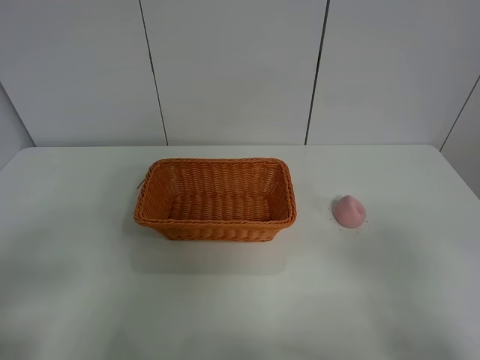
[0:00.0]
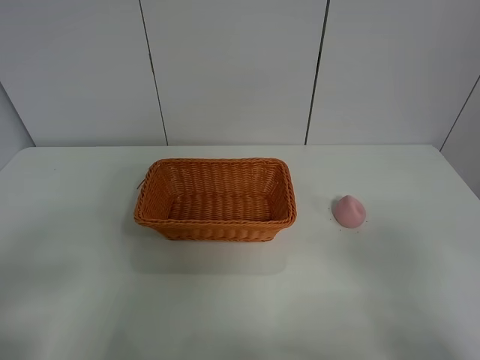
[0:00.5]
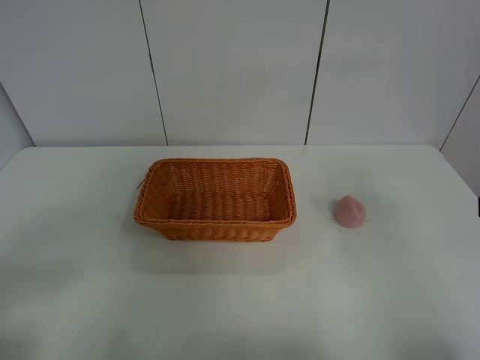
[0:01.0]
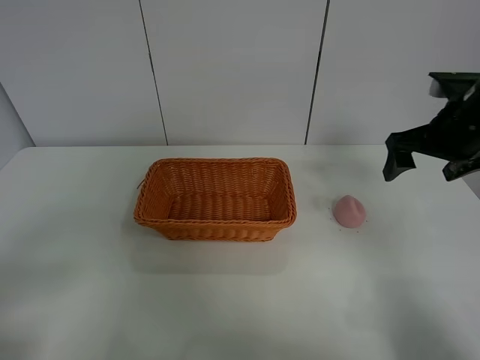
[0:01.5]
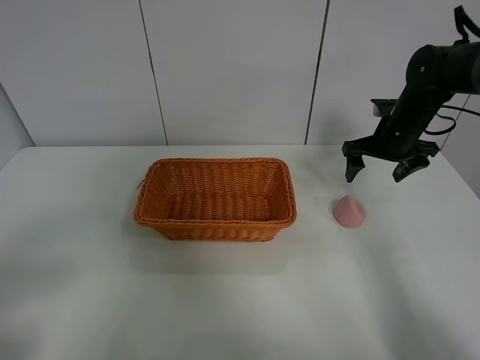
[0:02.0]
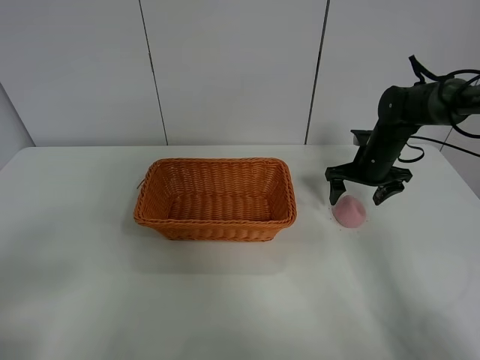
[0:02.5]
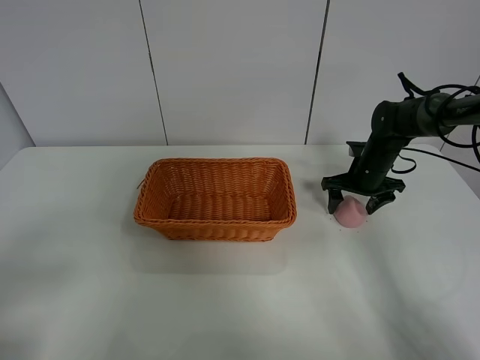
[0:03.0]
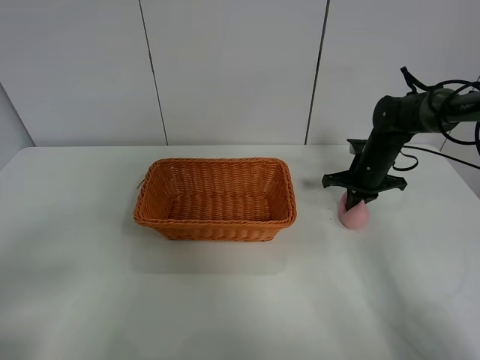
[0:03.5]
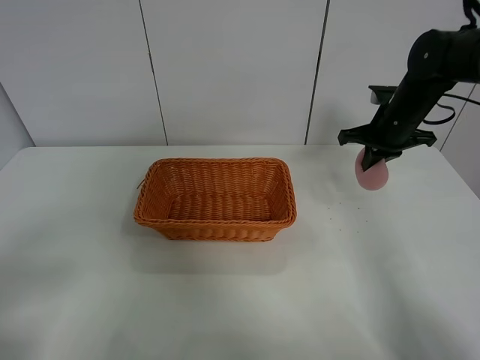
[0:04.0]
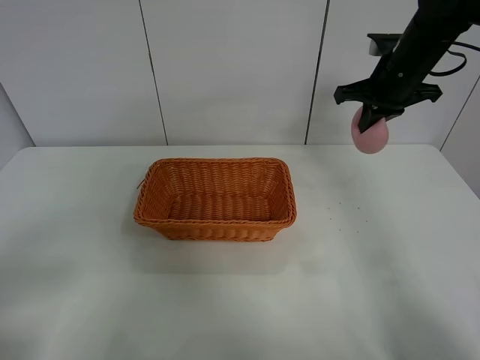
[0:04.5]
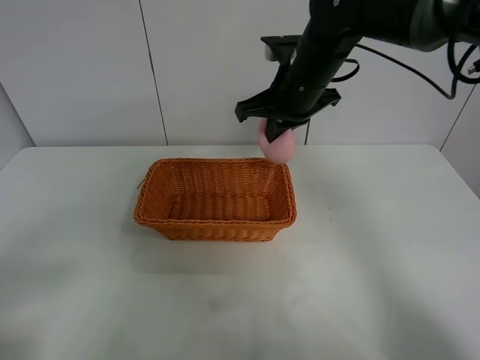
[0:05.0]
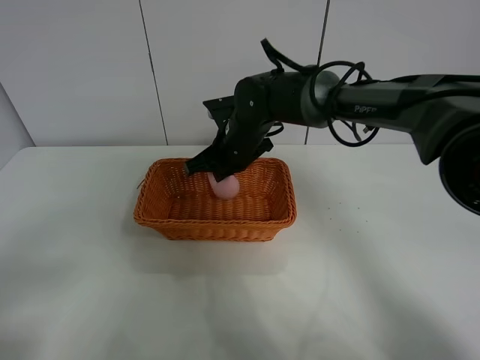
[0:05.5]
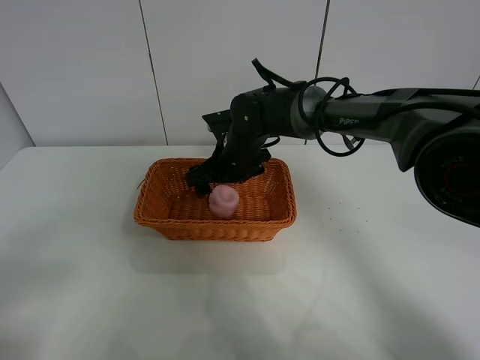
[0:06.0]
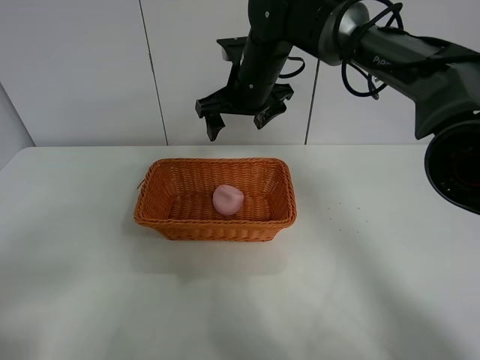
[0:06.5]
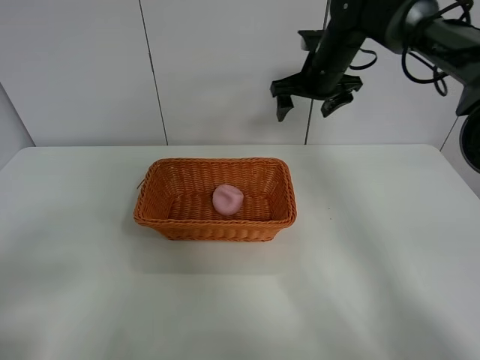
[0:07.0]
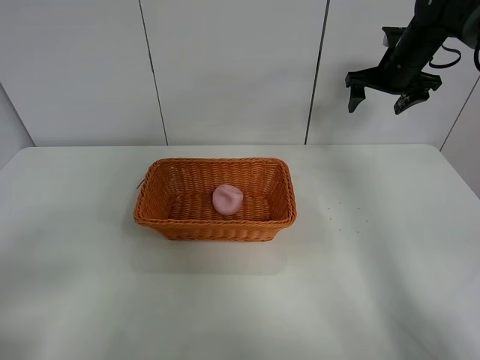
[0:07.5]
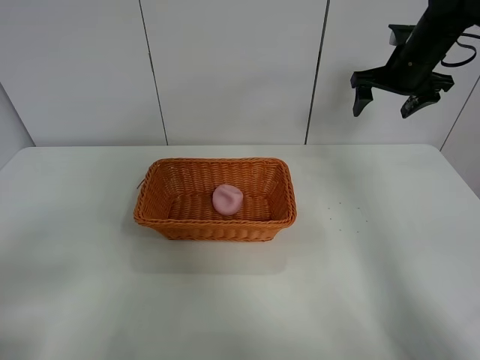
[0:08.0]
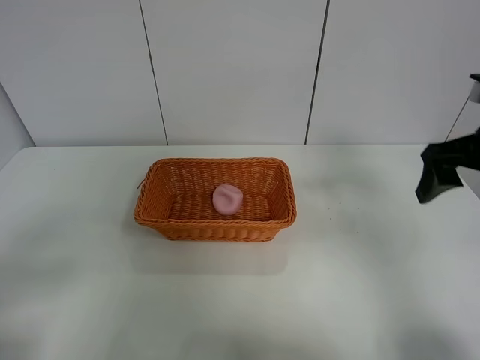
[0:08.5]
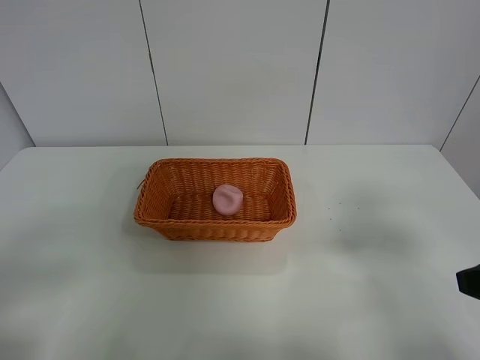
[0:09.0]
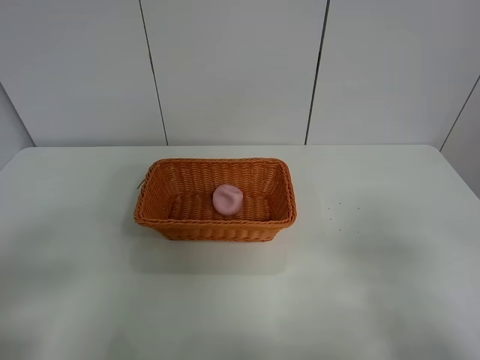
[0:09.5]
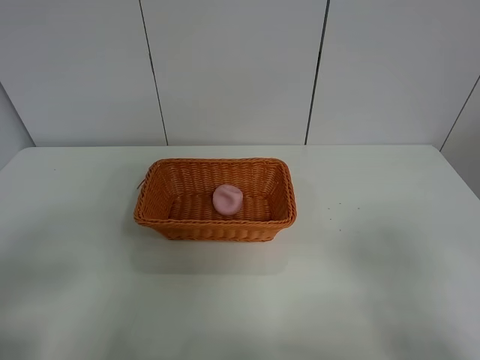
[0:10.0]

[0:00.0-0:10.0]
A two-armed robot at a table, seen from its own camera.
Step, 0:00.0 to 0:03.0: Grasp the peach with right gripper.
Step, 0:03.5 to 0:06.5: Place the peach in the basket with right gripper.
0:00.0 to 0:02.0: The right gripper moves forward, about 40 cm.
0:02.0 to 0:04.0: The right gripper moves some 10 cm downward and comes back, and closes.
0:04.0 to 0:06.0: The right gripper heads to the left, covering some 25 cm, and opens.
0:06.0 to 0:08.0: The right gripper moves to the right and upward, some 30 cm.
0:08.0 to 0:10.0: The right gripper is displaced backward by approximately 50 cm.
